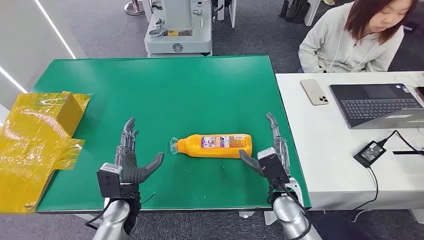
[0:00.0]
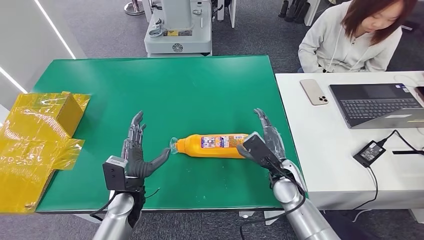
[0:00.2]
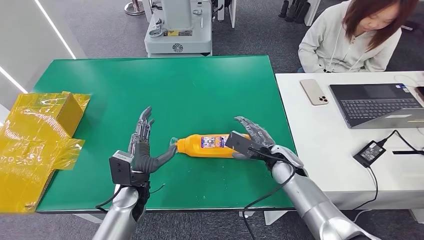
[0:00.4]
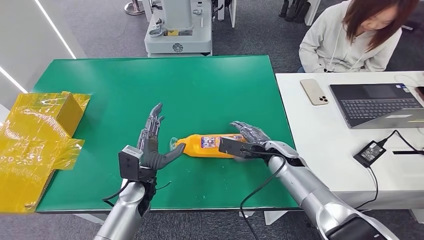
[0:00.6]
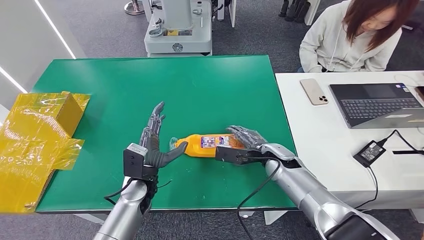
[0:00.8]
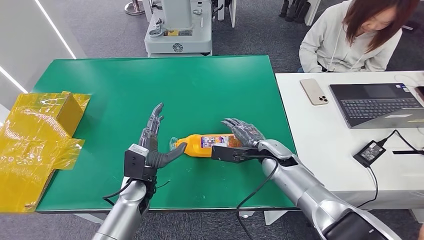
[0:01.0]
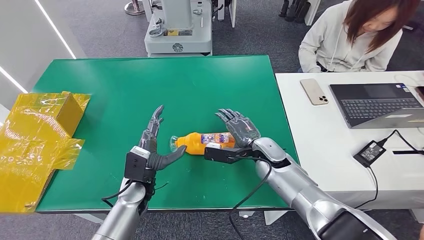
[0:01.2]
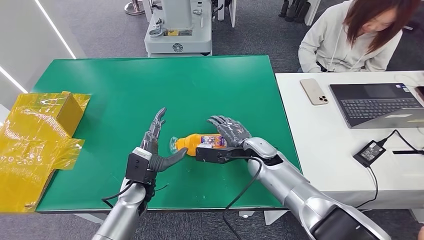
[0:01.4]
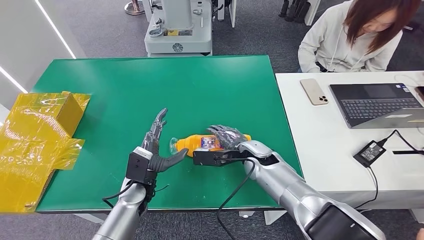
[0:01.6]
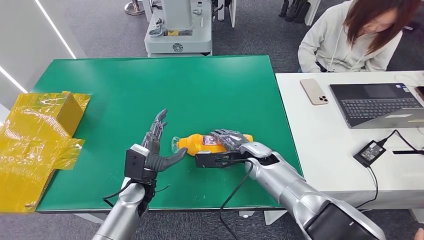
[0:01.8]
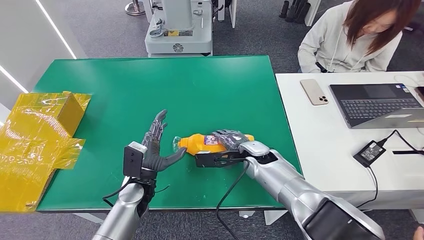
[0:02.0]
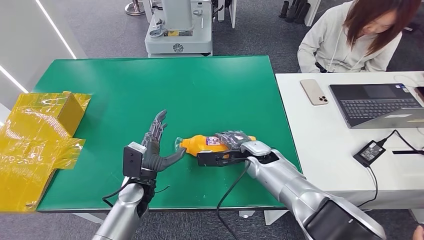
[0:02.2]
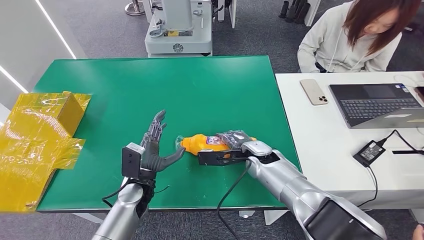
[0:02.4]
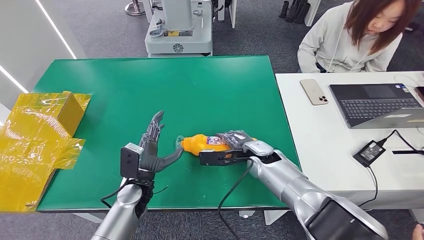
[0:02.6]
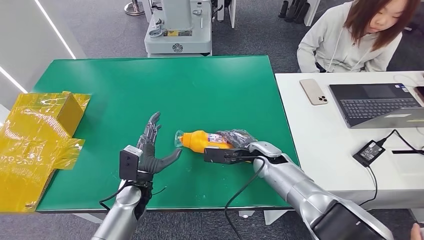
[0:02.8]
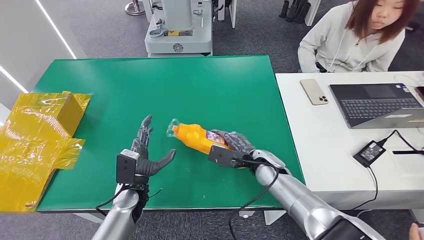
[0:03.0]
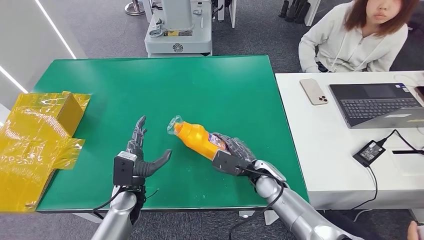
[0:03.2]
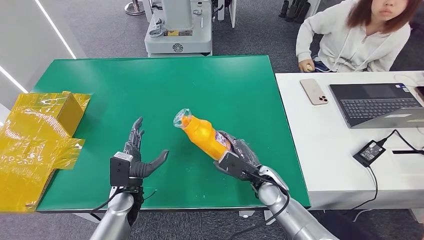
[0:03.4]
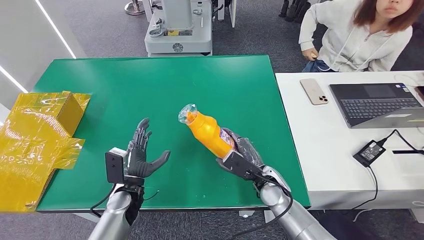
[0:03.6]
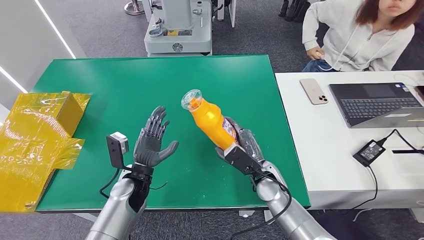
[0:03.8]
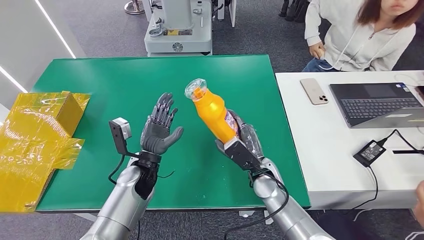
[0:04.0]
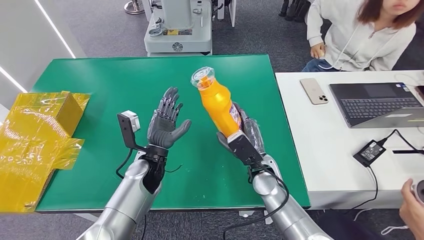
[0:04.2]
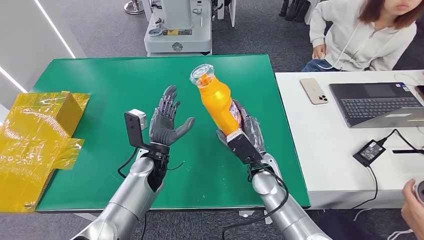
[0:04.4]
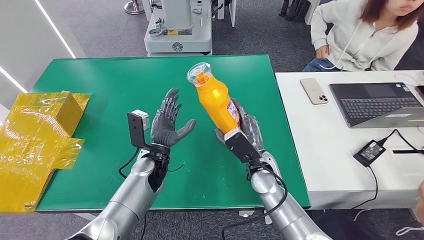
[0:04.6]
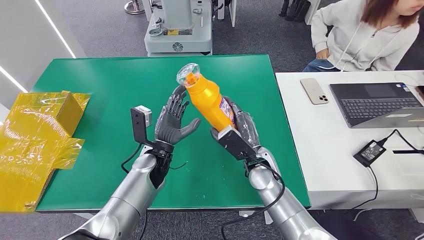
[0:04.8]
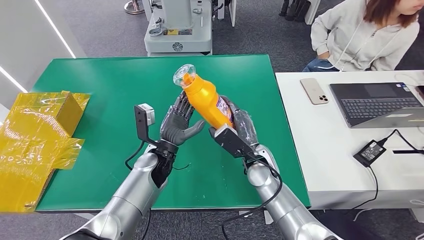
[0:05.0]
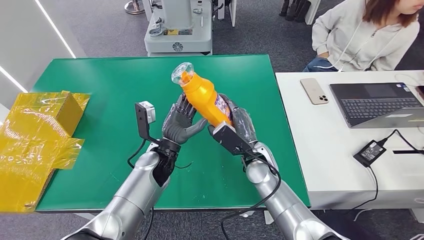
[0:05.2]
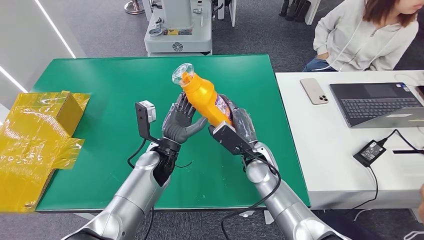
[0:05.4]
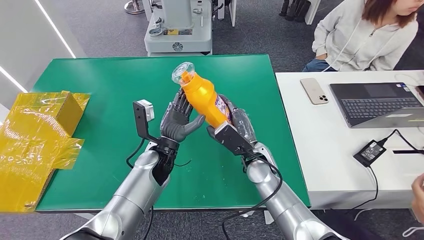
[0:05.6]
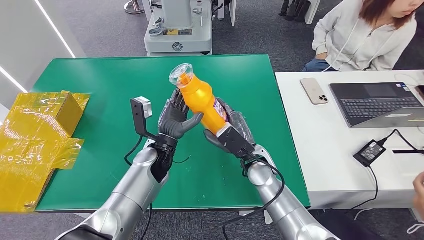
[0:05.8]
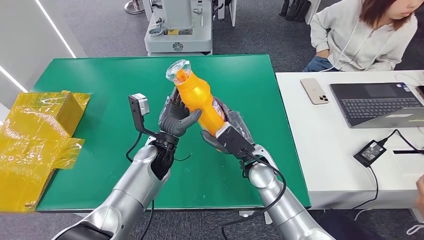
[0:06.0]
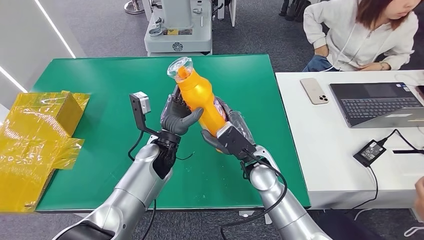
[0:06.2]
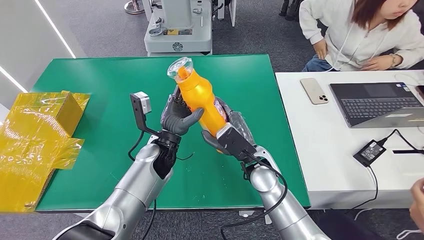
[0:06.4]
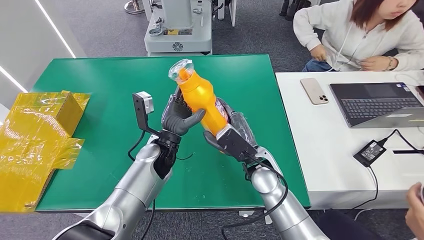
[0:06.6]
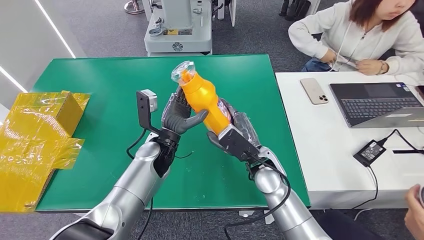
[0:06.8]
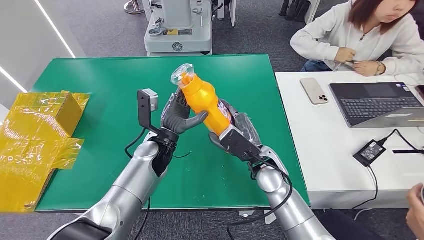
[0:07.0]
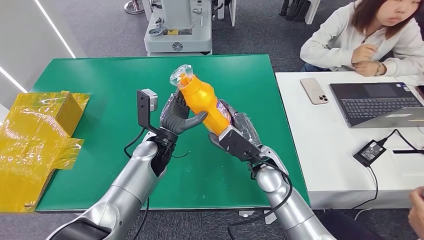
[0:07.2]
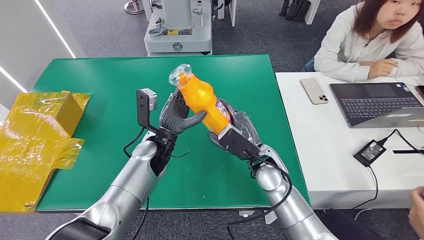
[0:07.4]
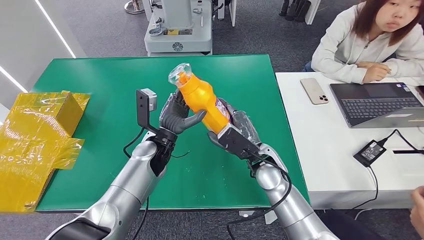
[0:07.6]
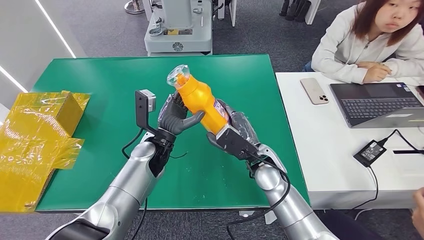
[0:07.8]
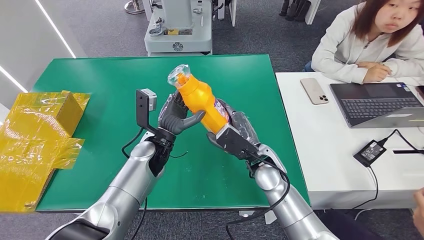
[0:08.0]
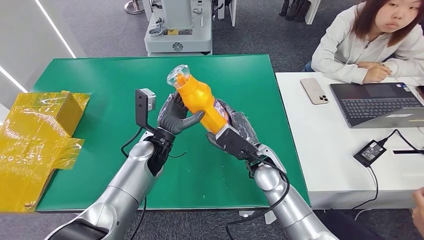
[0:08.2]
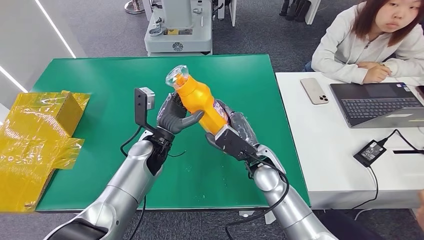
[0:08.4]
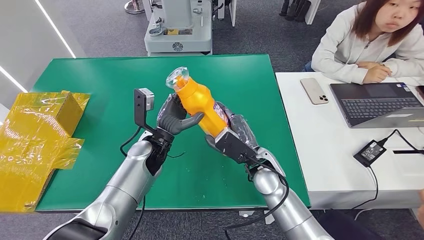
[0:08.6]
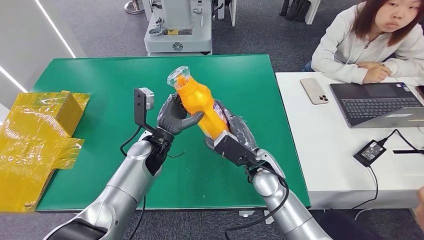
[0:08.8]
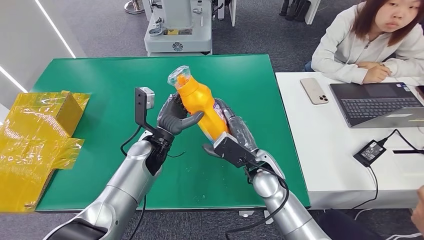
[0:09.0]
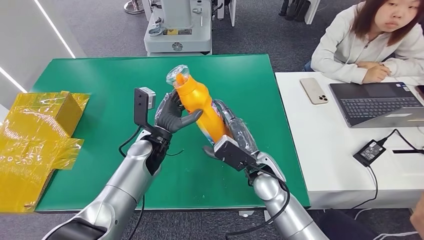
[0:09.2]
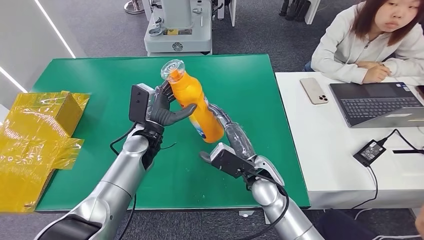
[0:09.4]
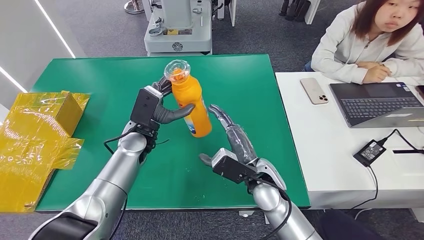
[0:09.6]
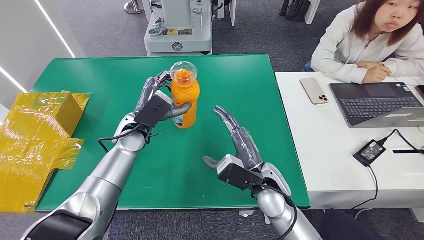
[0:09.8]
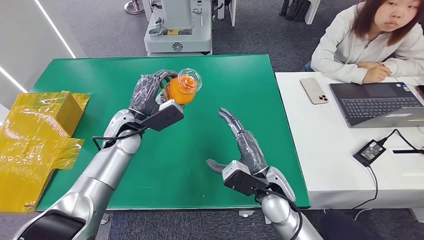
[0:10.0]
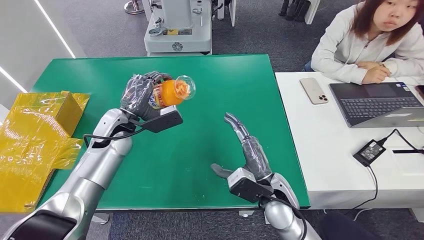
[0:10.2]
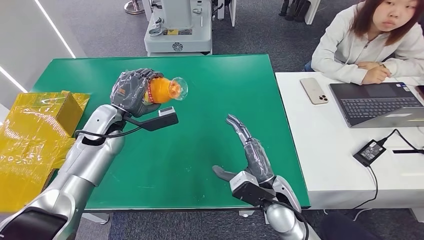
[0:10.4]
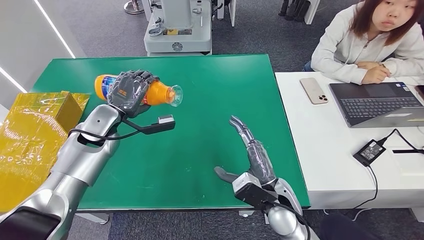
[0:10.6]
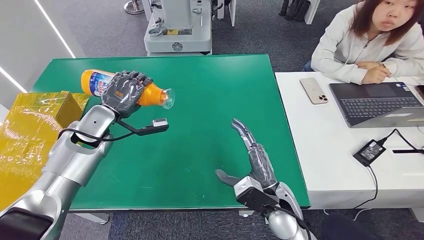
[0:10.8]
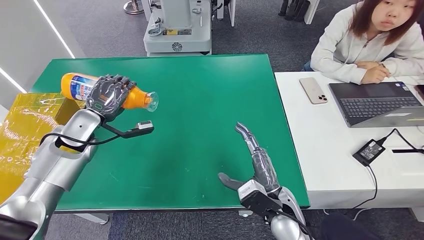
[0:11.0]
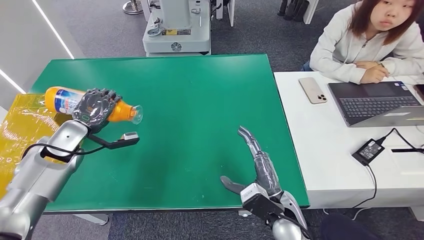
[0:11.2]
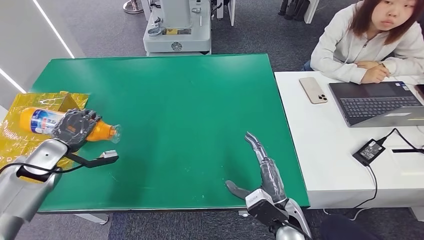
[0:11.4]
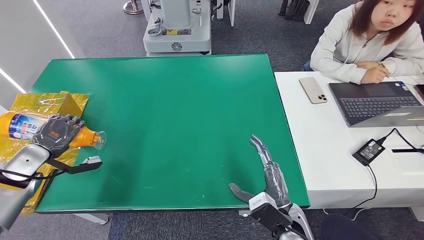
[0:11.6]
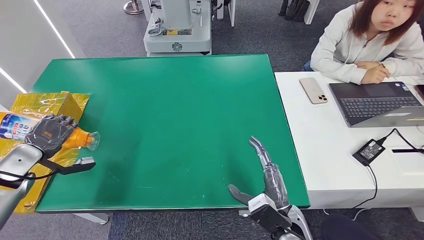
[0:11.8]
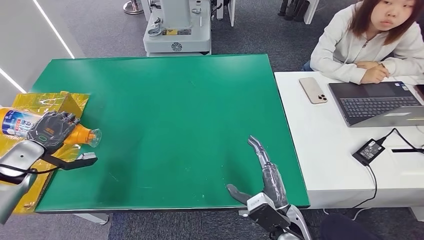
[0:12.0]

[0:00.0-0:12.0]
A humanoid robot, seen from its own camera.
Step, 0:00.0 to 0:05.6: Pick up the bottle from the table.
0:04.4 to 0:09.0: The hands stay close to where they were, moving slightly.

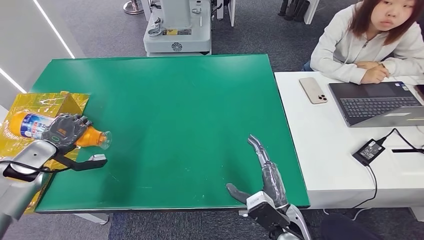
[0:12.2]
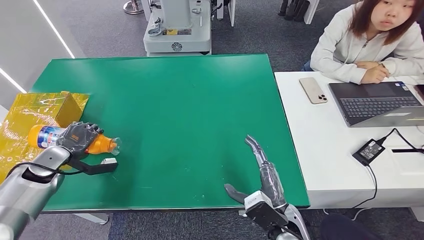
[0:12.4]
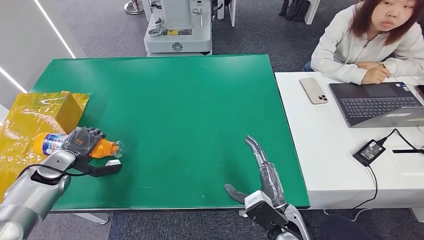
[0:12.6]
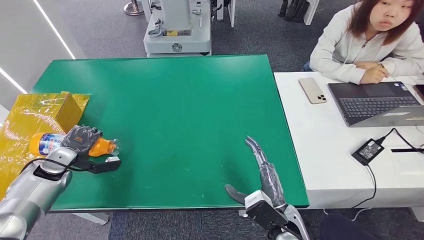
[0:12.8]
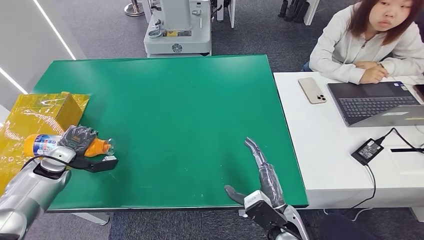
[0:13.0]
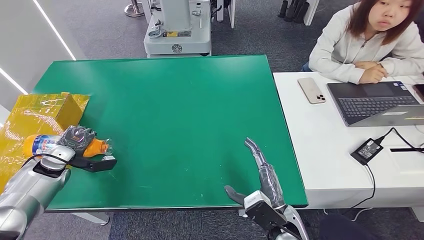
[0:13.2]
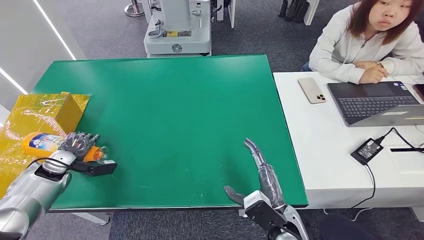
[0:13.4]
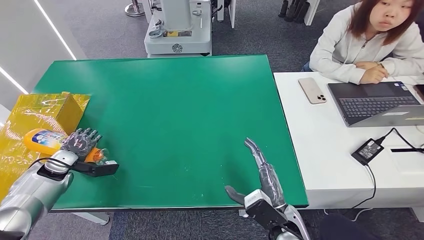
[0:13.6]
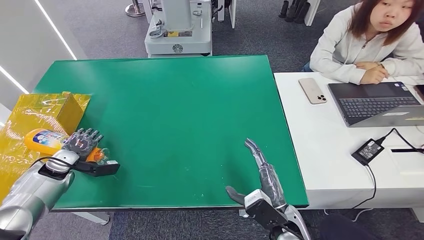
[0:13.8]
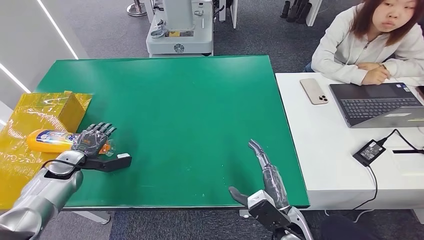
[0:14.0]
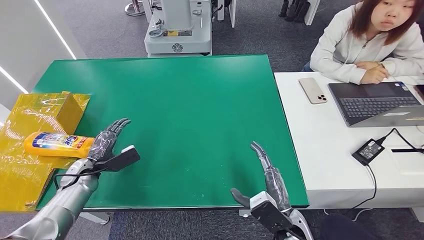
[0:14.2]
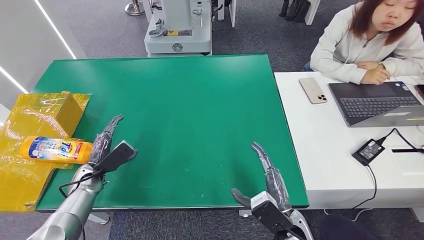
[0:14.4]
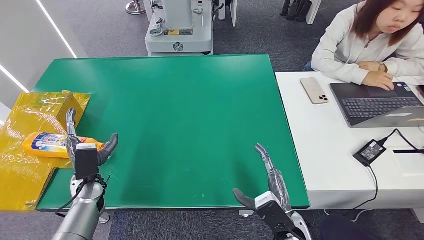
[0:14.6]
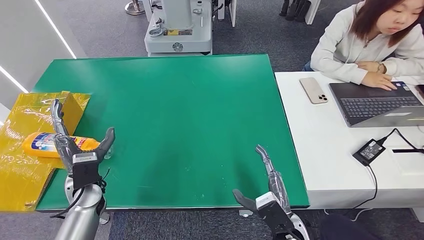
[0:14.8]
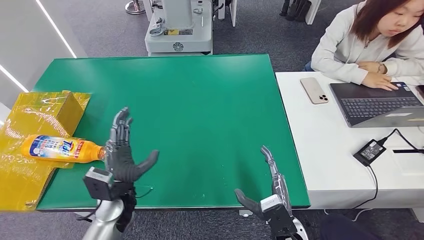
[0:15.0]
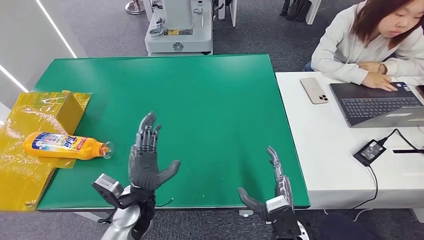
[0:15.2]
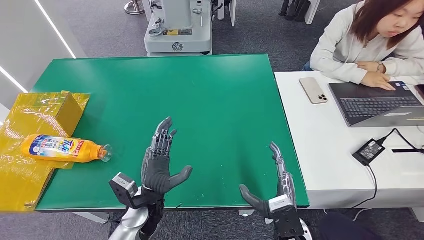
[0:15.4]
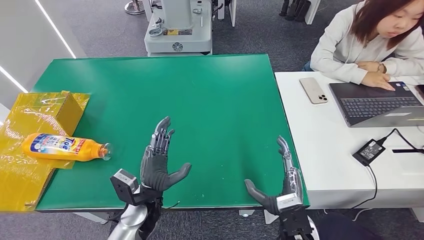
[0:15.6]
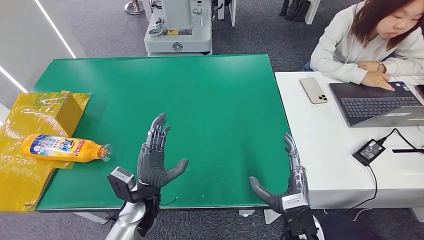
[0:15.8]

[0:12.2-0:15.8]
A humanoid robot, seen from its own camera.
Step, 0:12.2 to 0:15.8: Turn the bottle to the front side.
0:12.2 to 0:14.0: The left hand travels downward by approximately 5 cm.
0:14.0 to 0:15.8: The left hand moves to the right and backward, some 30 cm.

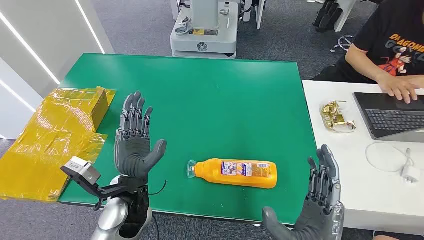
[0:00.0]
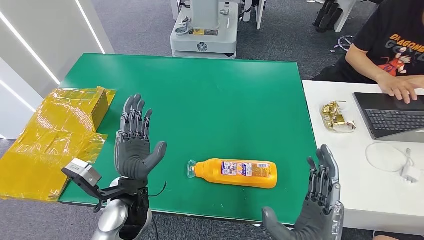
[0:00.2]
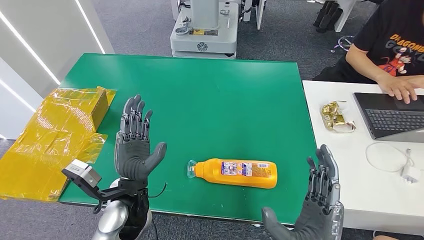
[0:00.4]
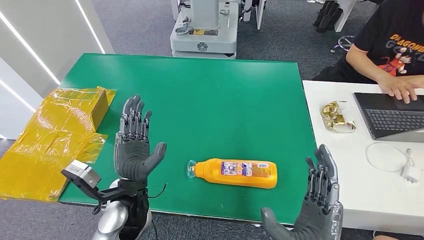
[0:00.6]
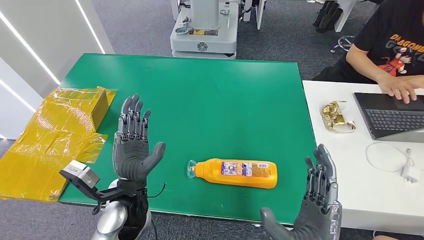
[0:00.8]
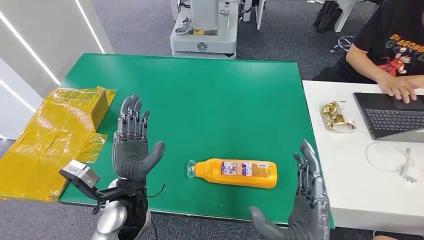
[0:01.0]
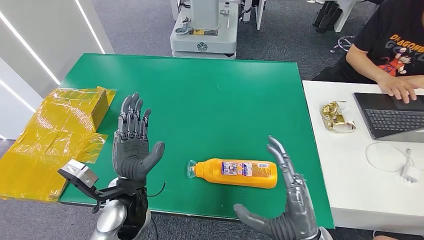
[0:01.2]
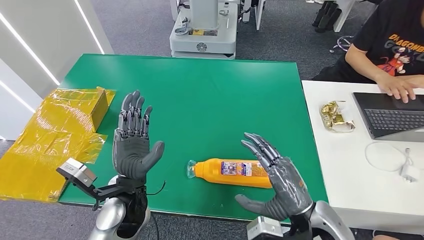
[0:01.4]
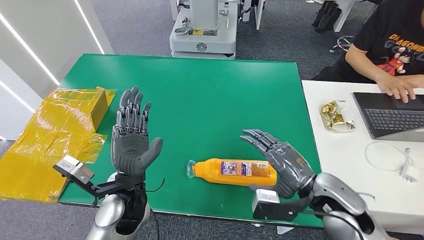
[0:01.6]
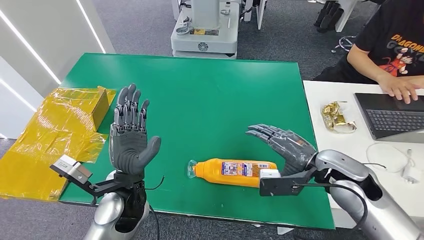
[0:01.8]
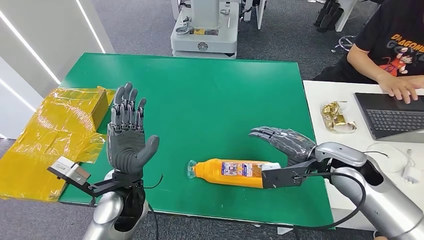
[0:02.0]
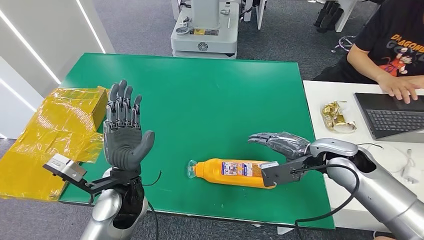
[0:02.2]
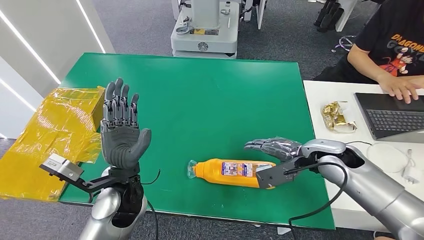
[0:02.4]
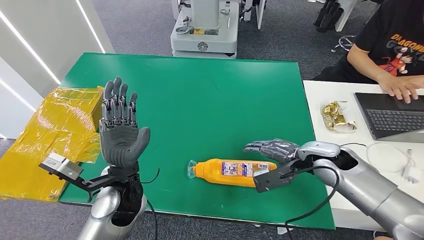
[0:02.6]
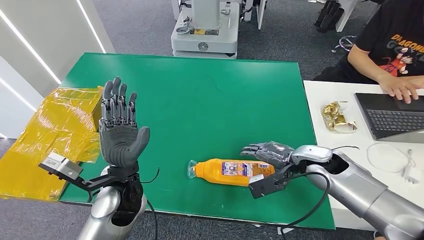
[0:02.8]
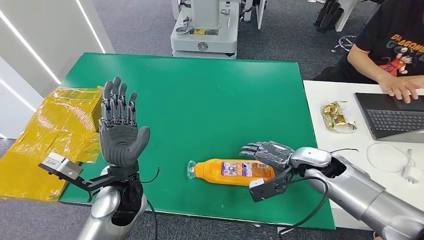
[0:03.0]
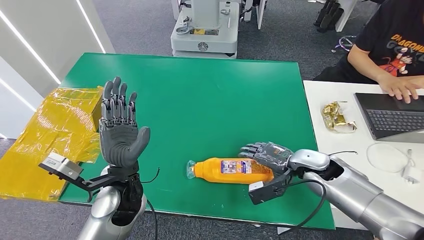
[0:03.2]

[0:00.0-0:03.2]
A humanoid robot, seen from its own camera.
0:01.6 to 0:03.2: The right hand travels forward by about 10 cm.
